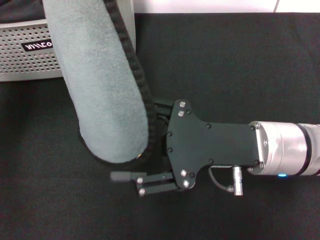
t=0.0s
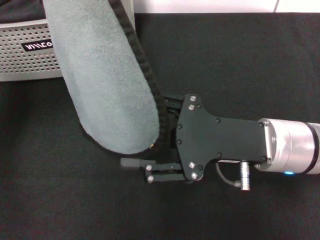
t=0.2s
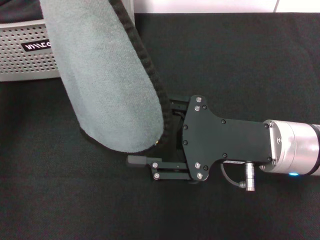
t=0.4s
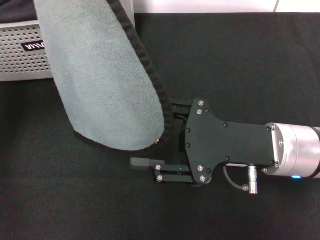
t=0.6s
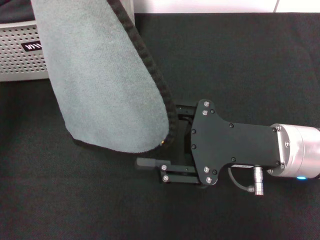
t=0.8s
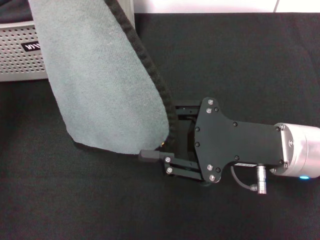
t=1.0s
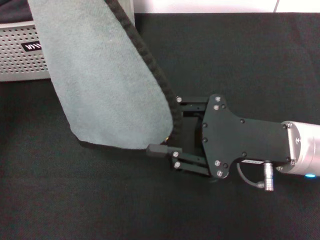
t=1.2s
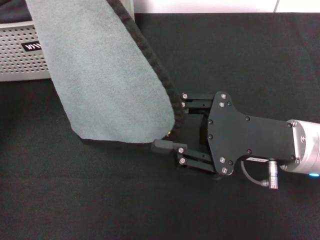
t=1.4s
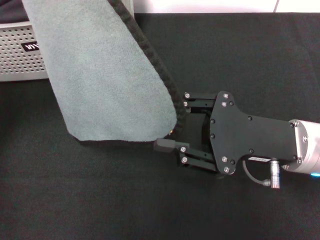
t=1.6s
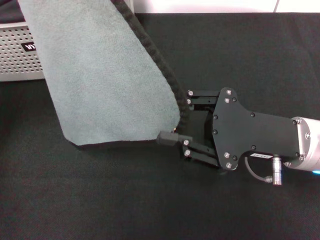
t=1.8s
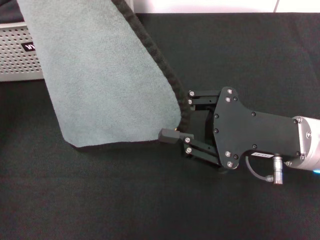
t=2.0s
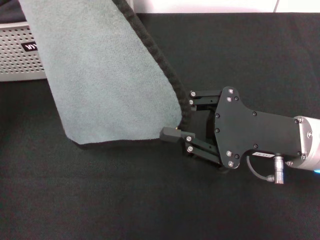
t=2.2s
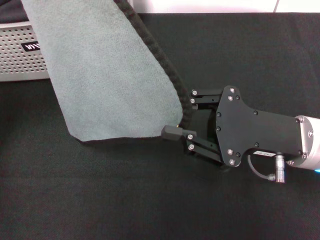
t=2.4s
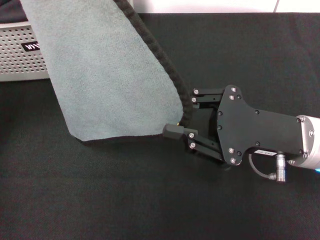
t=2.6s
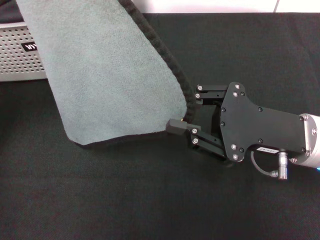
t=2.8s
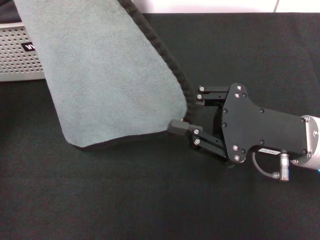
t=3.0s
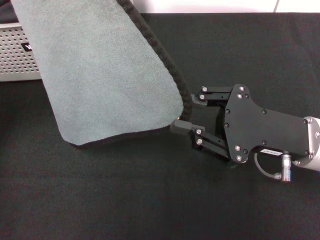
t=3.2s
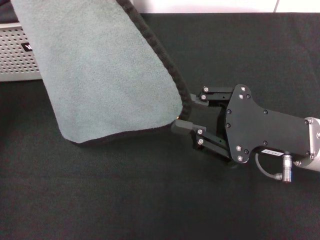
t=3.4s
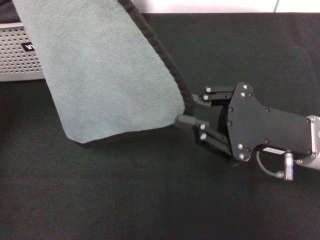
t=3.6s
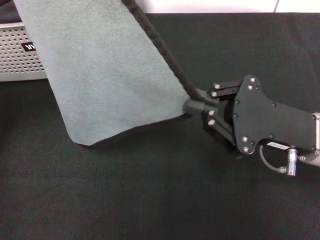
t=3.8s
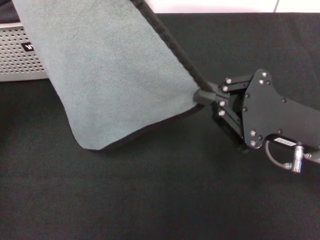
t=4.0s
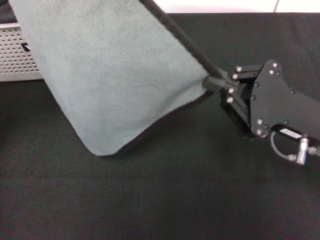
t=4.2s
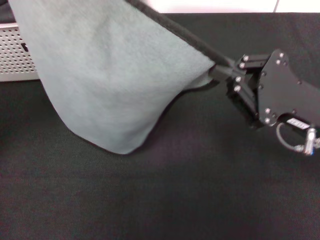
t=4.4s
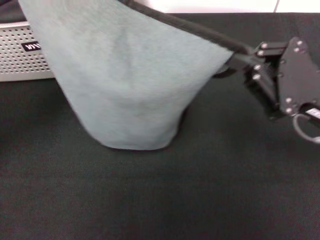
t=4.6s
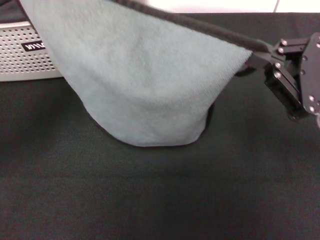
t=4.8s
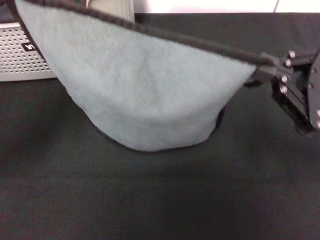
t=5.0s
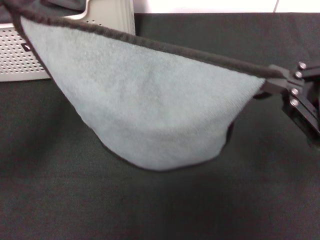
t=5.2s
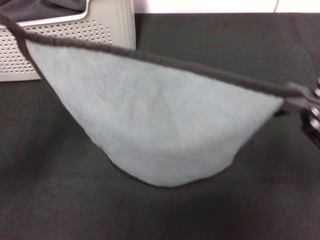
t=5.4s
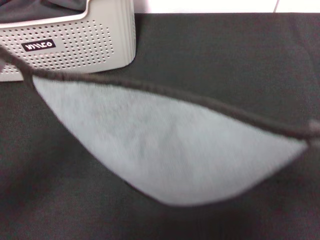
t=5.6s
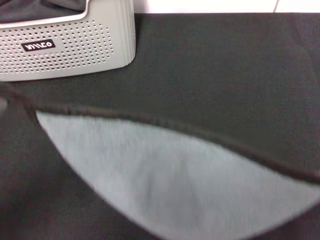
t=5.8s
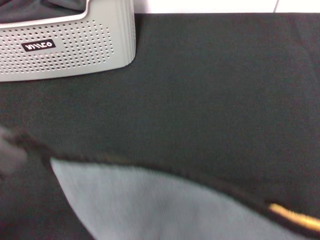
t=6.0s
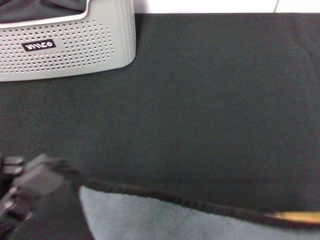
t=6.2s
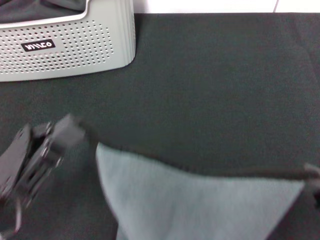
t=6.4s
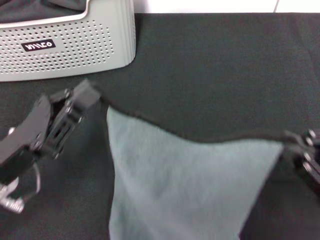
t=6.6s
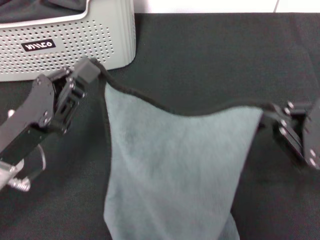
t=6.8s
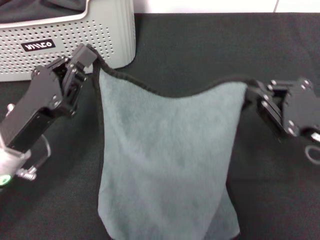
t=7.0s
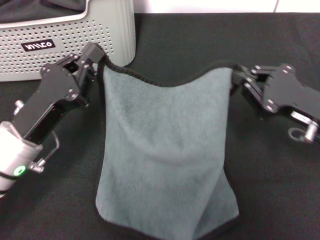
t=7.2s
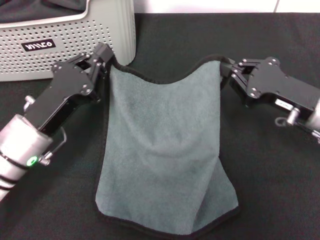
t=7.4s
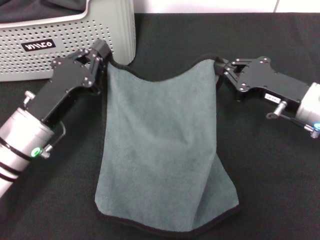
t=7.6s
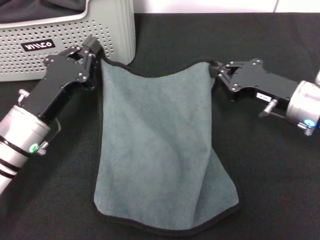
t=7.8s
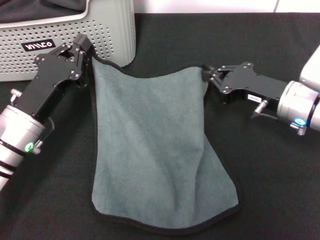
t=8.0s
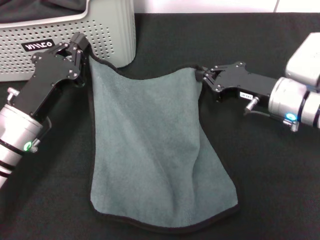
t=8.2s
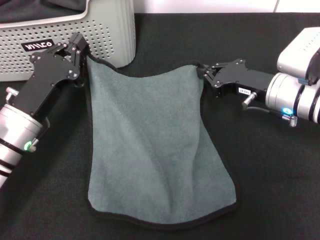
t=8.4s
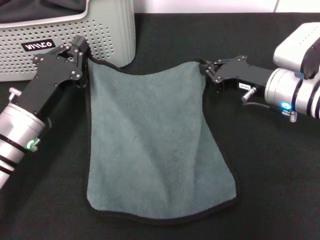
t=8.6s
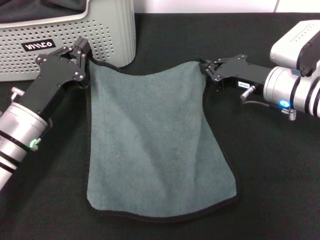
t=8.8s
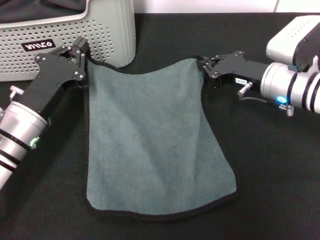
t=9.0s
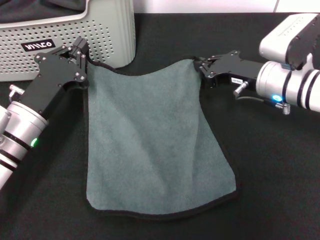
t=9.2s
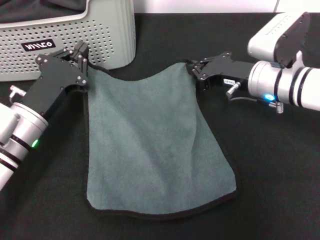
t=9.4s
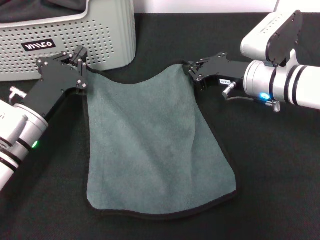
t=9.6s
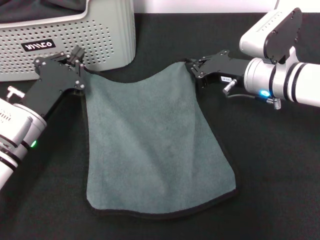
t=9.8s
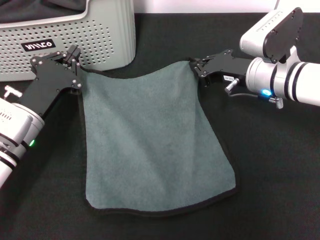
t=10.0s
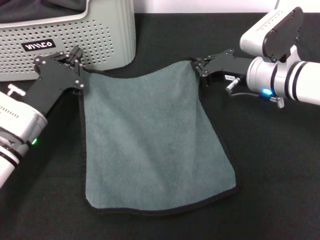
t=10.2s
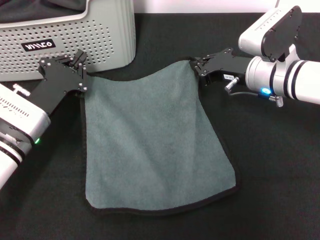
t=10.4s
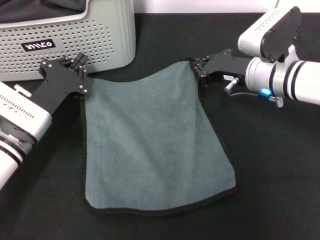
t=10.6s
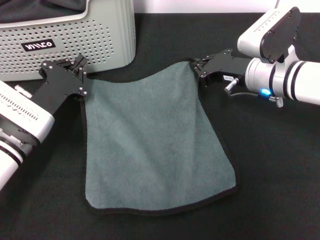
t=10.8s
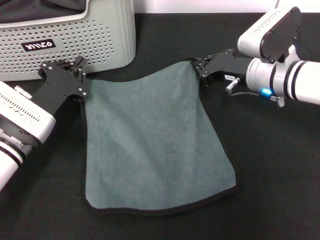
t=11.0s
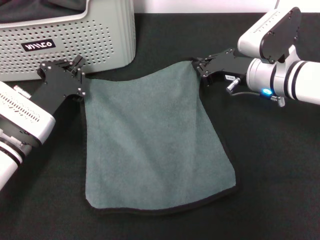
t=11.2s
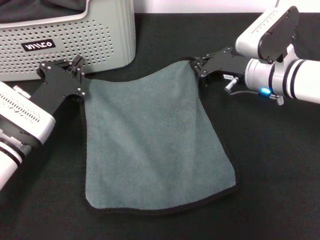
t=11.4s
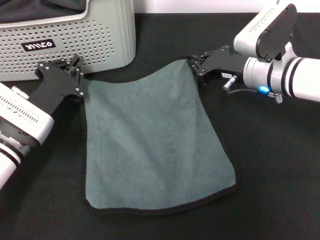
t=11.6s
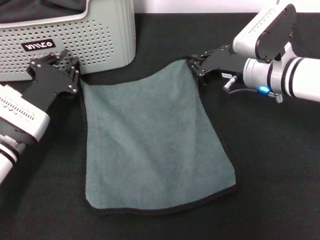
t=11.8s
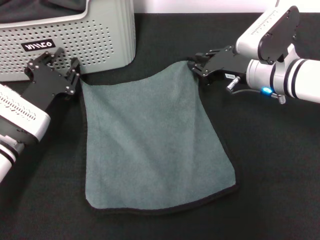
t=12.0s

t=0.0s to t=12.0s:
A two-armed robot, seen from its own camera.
Task of the whole recording: pick up the towel from the storage box and lay it flat on the black tablecloth.
Step, t=0.0s to t=4.0s: Spread the towel flat with the left gripper.
Step, t=4.2s to t=12.0s: Spread the towel flat with the right gripper.
t=0.0s to t=1.6s: The right gripper closes.
t=1.6s to t=3.0s: Both grippers stay about where they are.
t=4.4s to t=6.0s: The left gripper heads backward, covering some 15 cm. The right gripper heads backward, to the right and upward, covering about 20 cm.
t=6.0s to t=7.6s: The two grippers go about 20 cm forward and downward.
t=7.6s to t=9.0s: The right gripper goes about 5 cm forward.
t=10.4s to t=12.0s: The grippers make only small movements.

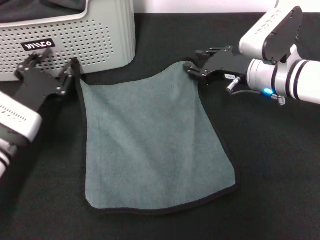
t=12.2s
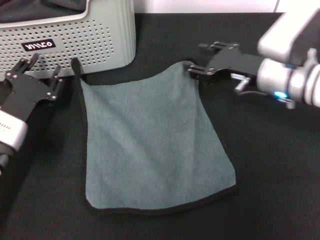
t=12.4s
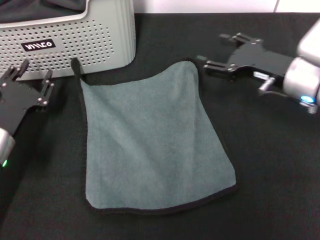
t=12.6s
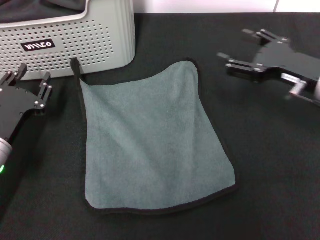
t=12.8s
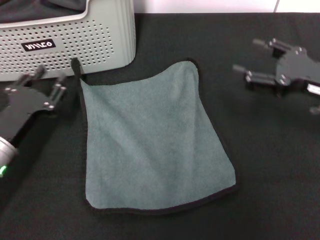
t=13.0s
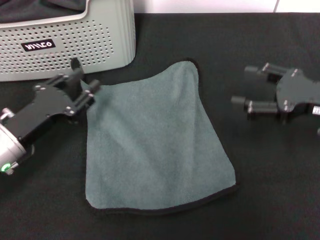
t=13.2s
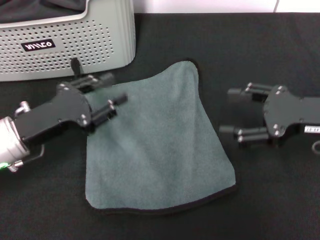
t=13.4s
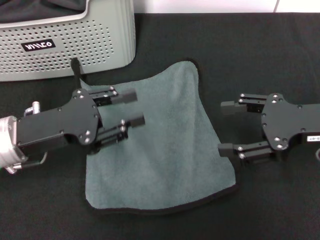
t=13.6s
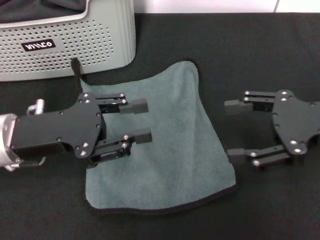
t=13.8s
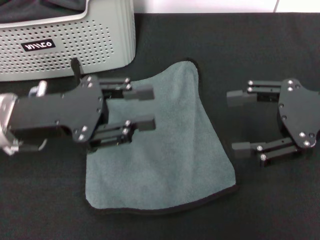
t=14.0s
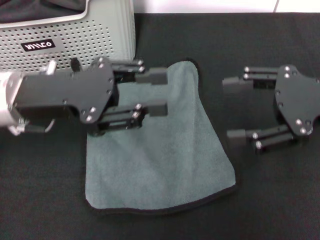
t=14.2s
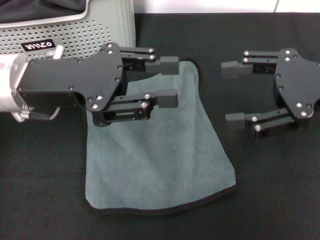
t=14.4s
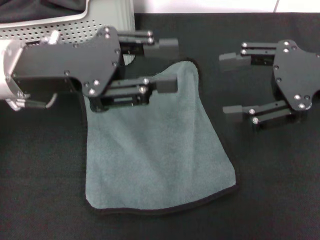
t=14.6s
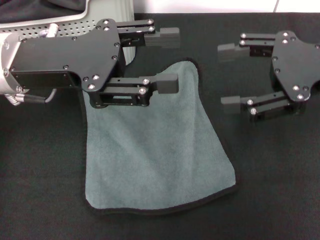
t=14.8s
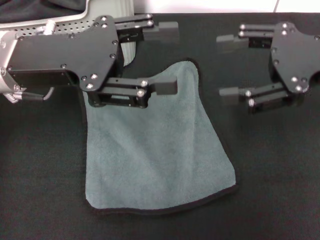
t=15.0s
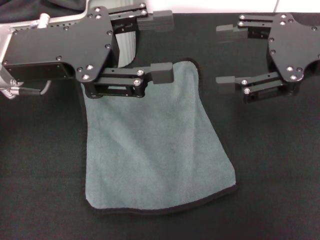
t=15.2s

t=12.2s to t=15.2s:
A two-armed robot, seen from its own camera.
Task of the whole recording: pick up the towel from the storage box and lay it flat on the black tablecloth.
t=12.2s to t=13.8s: The right gripper moves backward, to the right and upward, about 20 cm, and opens up, while the left gripper travels upward by approximately 10 cm.
t=13.8s to t=15.2s: The grippers both shift upward by about 10 cm.

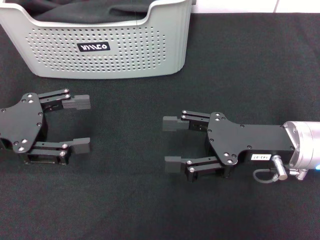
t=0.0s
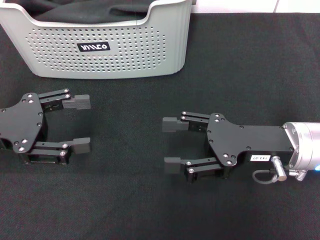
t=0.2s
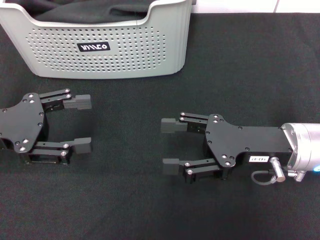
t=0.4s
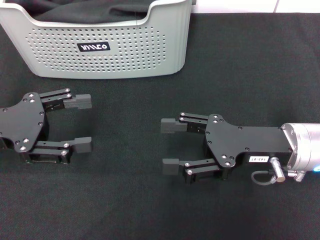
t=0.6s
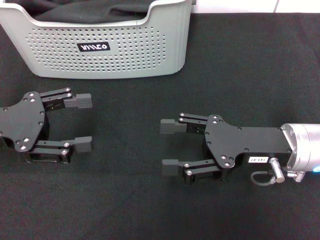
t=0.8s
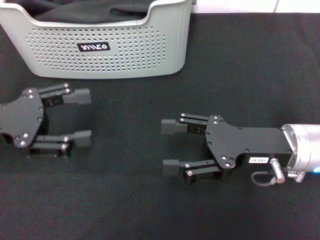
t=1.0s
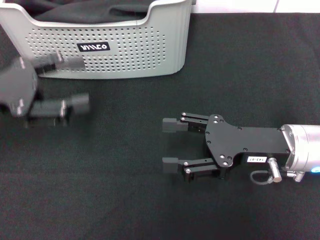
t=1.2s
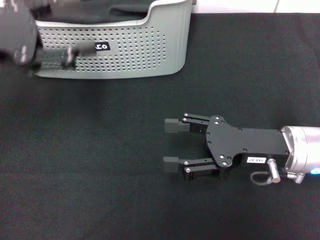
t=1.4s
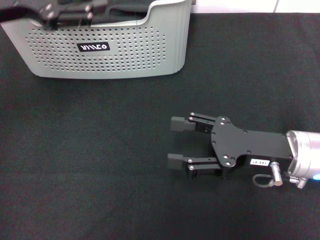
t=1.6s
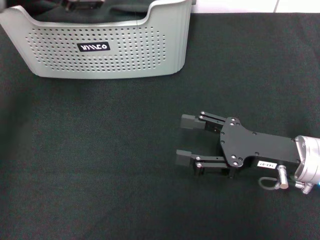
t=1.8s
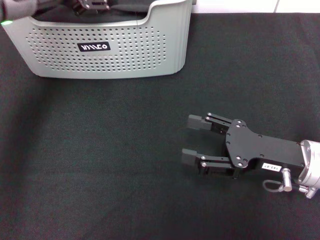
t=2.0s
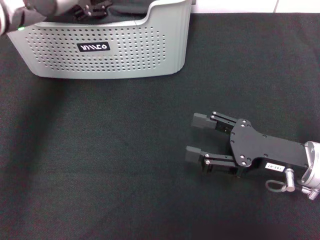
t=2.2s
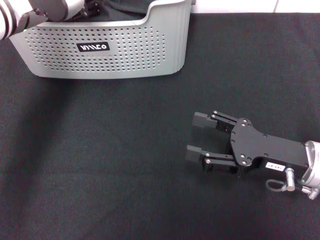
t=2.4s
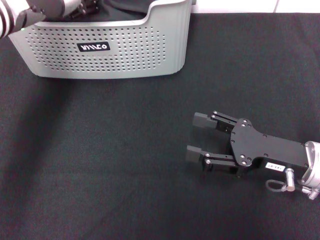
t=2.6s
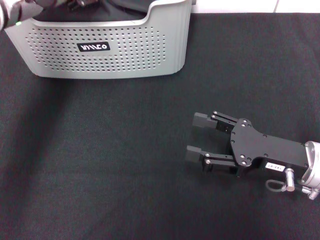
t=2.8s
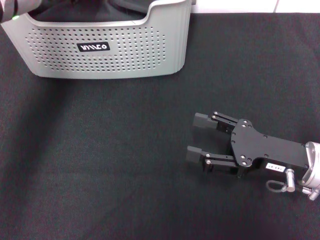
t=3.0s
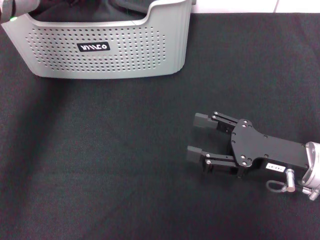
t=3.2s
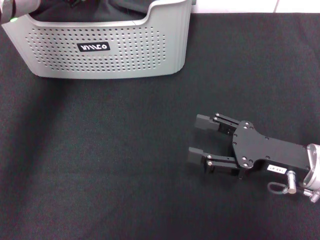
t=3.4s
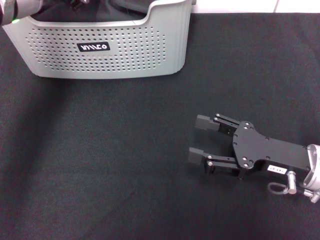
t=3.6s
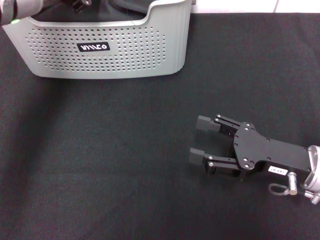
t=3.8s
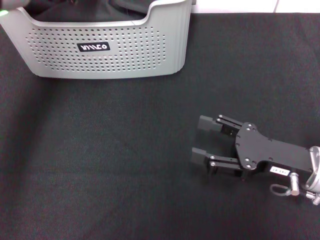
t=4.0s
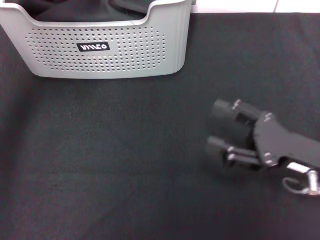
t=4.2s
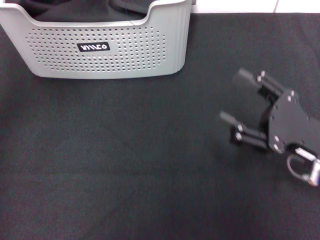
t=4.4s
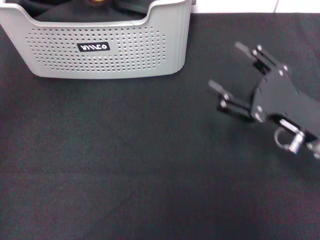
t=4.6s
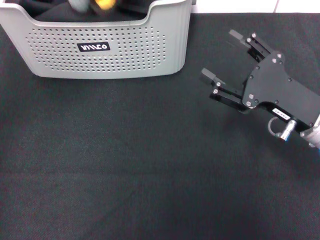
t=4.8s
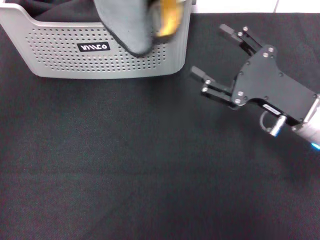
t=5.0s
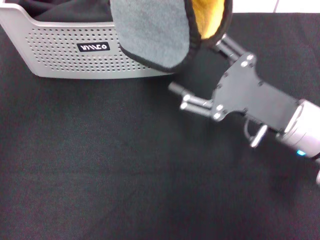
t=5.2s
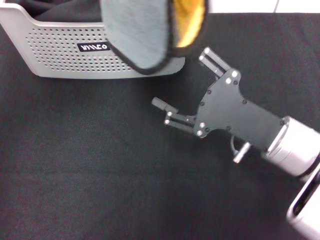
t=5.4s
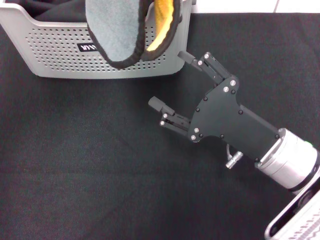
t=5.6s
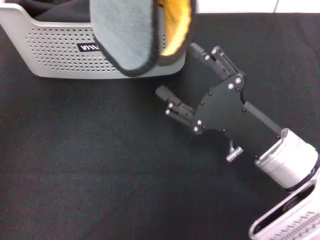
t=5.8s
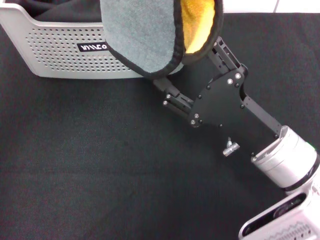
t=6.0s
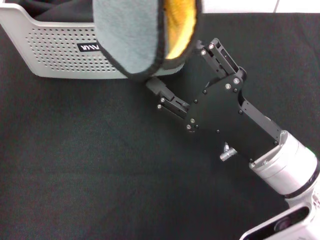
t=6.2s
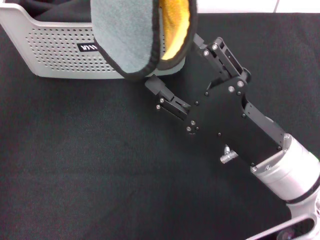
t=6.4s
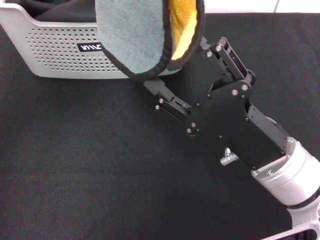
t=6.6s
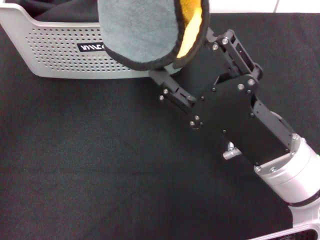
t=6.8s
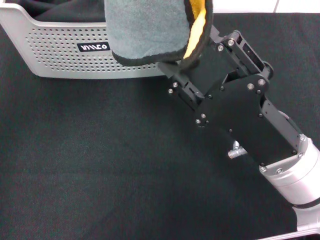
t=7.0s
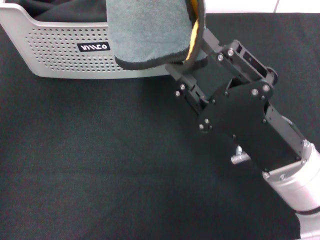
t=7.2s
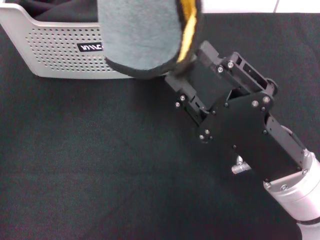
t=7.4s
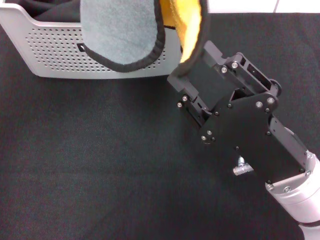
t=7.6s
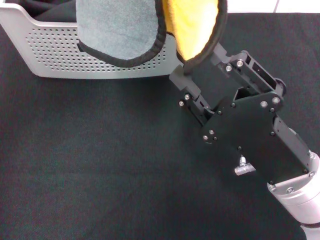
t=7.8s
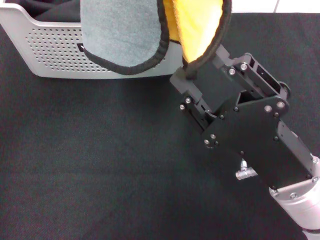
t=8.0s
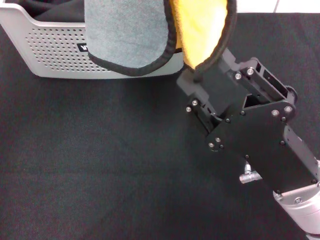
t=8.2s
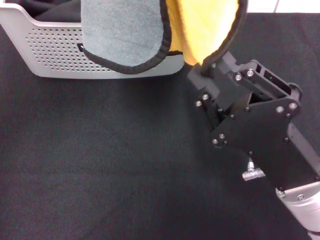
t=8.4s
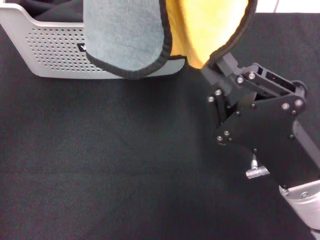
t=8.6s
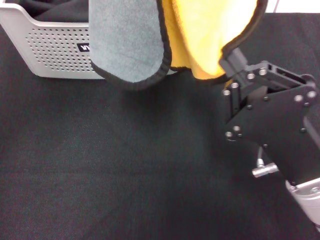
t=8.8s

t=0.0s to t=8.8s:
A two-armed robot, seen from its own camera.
Task of the whole recording: pick up the towel from the storage box and lay it flat on the black tablecloth.
Step, t=0.0s to t=2.6s: Pick up a towel with the left gripper.
Step, t=2.8s to t=8.6s: Spread the towel flat with the left gripper.
t=0.0s to t=1.4s: The left gripper moves upward, about 10 cm.
t=1.4s to t=3.0s: The left gripper goes roughly 15 cm forward and to the right.
t=3.0s to t=4.4s: The left gripper is displaced upward by about 5 cm, and closes.
t=4.4s to t=5.8s: The left gripper moves upward and backward, approximately 10 cm; the right gripper heads to the left, covering roughly 10 cm.
t=7.4s to t=8.8s: The right gripper closes.
